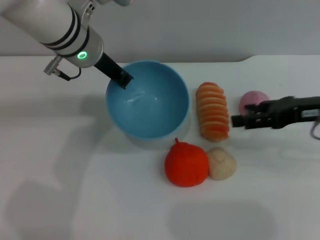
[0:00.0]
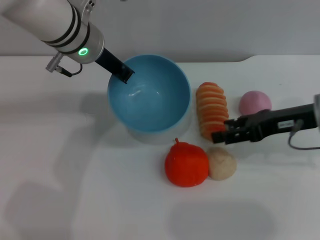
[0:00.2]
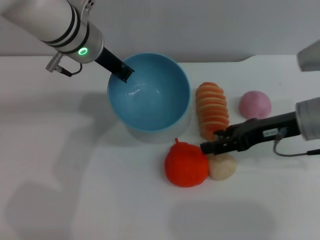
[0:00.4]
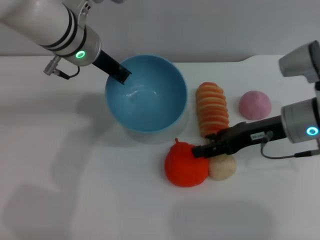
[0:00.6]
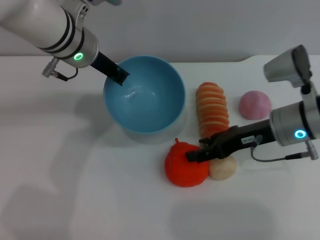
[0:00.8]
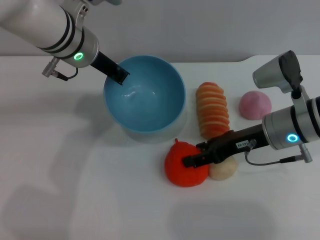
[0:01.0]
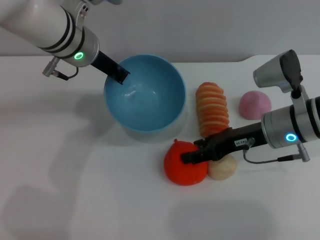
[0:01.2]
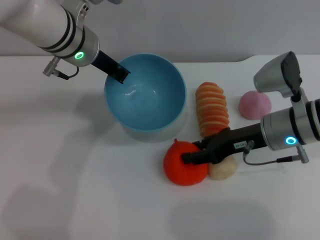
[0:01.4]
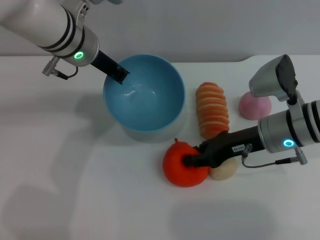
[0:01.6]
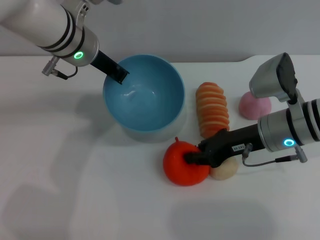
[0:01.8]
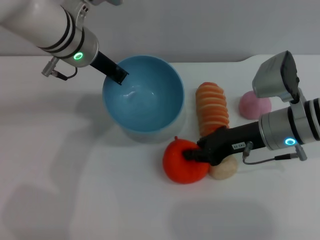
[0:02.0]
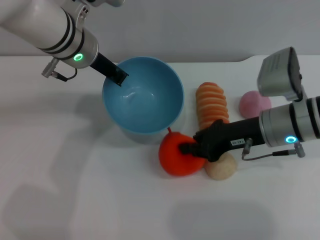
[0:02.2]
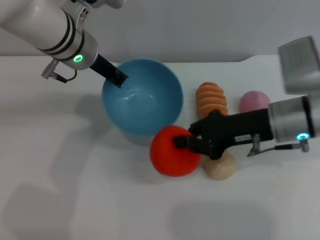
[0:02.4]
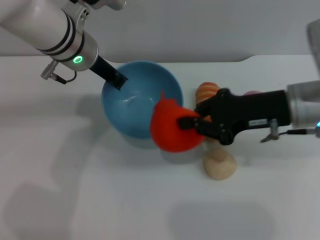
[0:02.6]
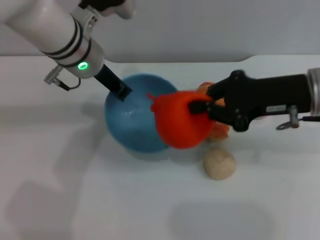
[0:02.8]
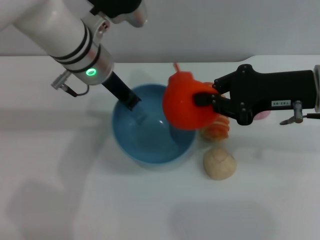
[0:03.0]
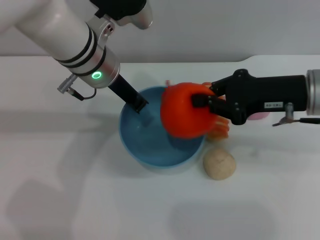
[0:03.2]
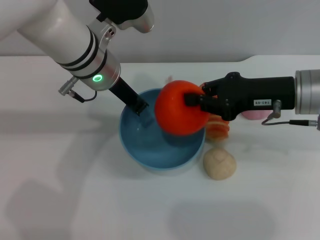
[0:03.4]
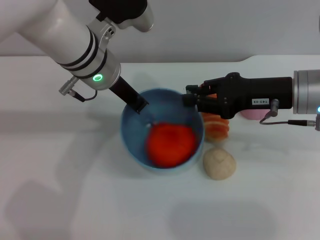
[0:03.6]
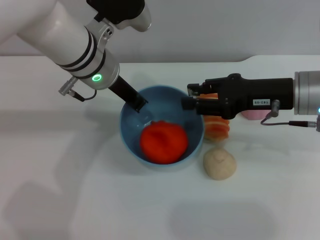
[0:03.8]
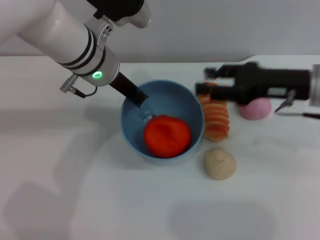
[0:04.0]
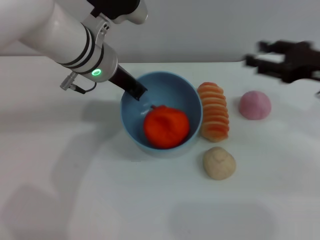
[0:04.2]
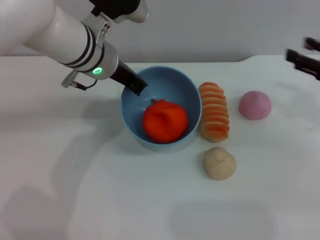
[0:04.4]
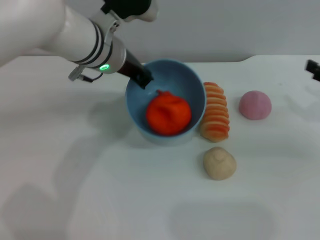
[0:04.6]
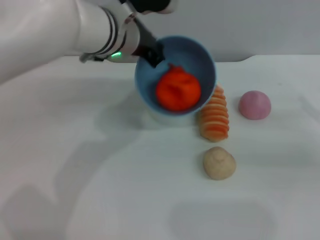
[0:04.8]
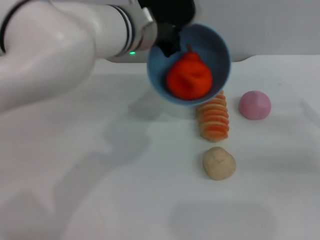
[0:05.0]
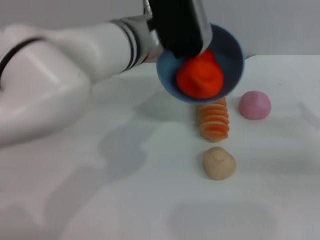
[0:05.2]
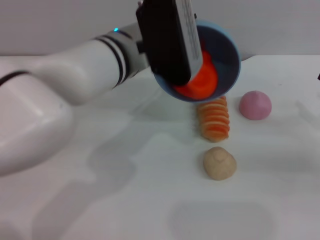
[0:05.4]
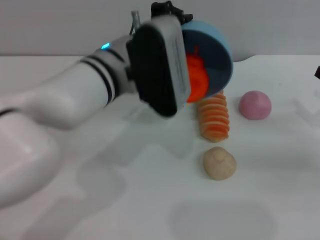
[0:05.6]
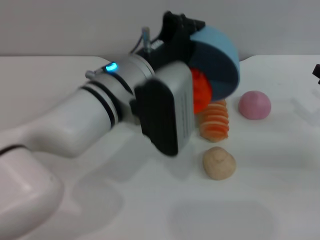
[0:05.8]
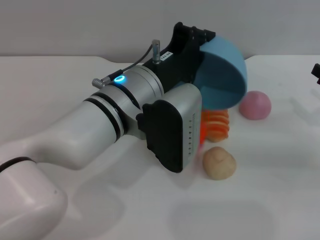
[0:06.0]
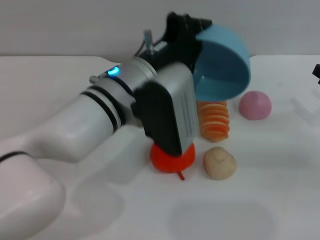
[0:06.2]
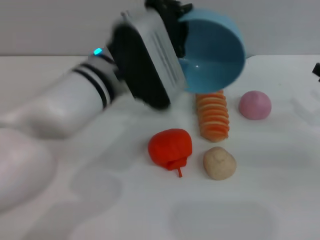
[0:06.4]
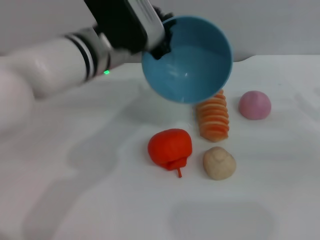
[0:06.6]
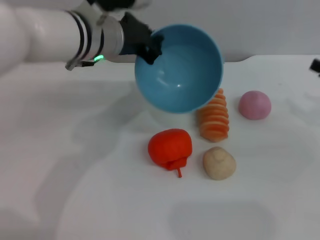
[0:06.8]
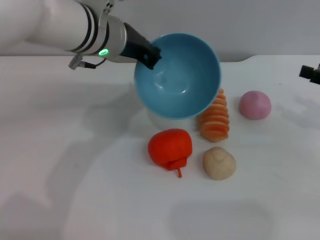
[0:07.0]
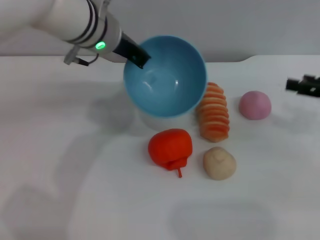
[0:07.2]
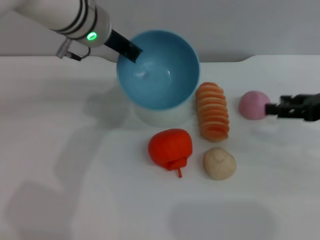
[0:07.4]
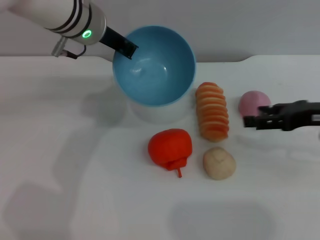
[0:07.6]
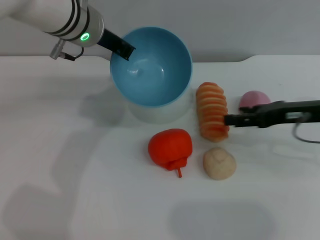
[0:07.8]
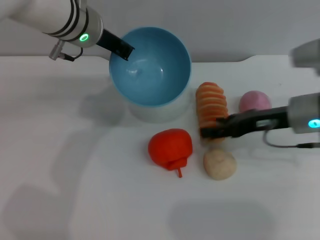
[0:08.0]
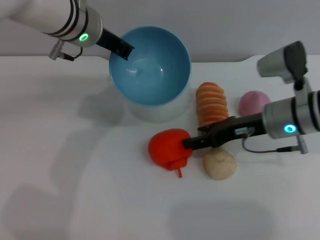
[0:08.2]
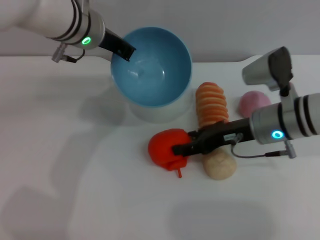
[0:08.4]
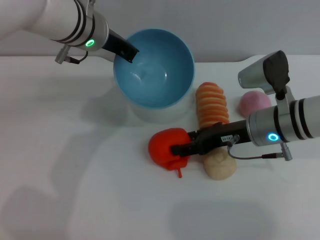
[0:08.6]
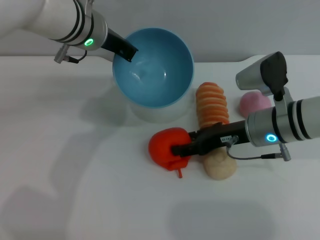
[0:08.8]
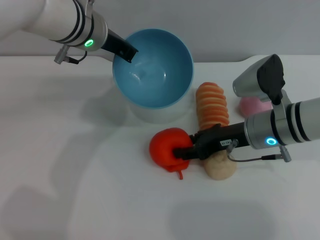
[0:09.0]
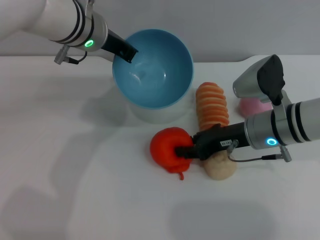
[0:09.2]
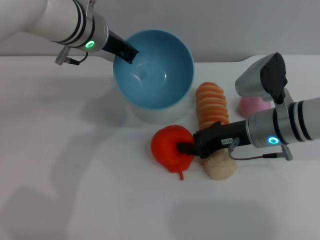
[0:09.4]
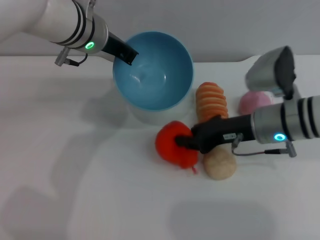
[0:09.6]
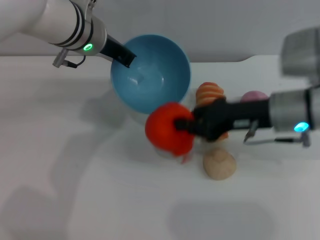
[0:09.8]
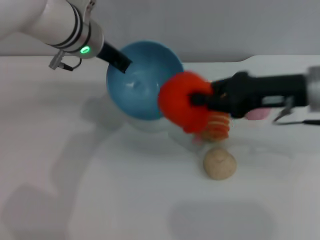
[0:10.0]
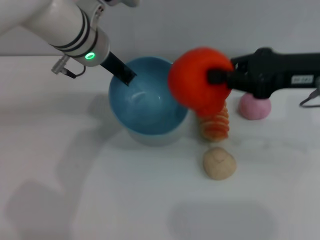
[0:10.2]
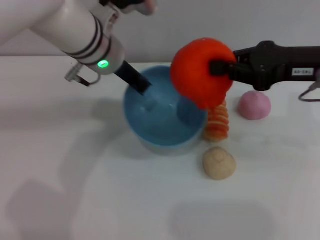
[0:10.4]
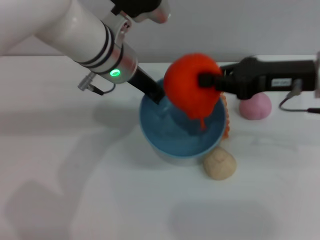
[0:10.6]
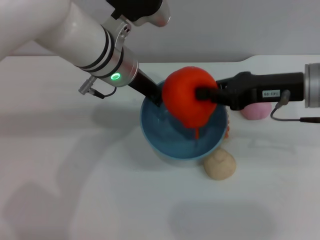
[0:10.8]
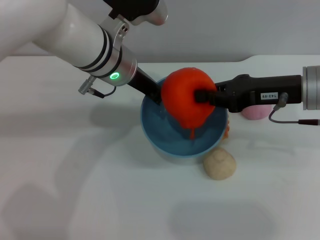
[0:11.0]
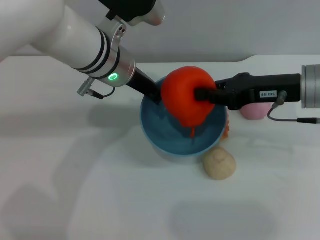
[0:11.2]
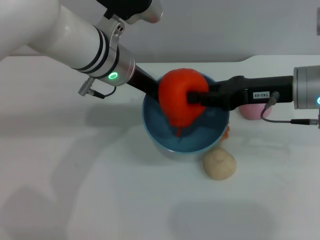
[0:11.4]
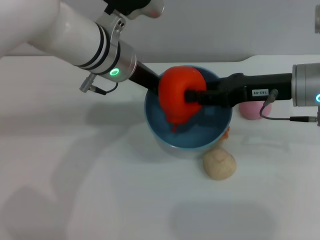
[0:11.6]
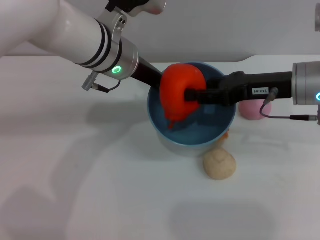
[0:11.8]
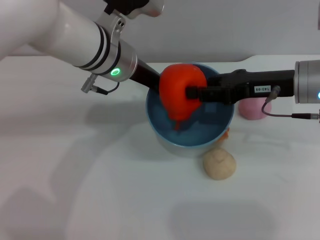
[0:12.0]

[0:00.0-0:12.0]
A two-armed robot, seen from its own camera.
Task of the whole recording: put the orange into the blue bowl and pour it out repeatedly.
Step, 0.0 to 2.4 s: Pick up the orange with the right gripper.
Step, 2.8 to 3.6 s: Place the orange into the bowl.
Step, 3.8 to 6.2 s: Pour the orange out of the bowl.
Step, 6.4 to 9.6 s: Pick up the orange with the right gripper.
0.0 to 1.6 s: The right gripper moves to the left and downward, about 10 cm, and closes.
1.6 to 3.0 s: The right gripper is displaced upward by about 10 cm, and closes.
3.0 to 4.4 s: The right gripper moves to the right, roughly 10 cm, and opens up.
4.4 to 6.0 s: The left gripper heads backward, covering some 10 cm. Meanwhile the right gripper is displaced downward by roughly 5 cm.
6.0 to 7.6 s: The right gripper is displaced to the left and upward by some 10 cm. The left gripper is displaced forward, to the left and upward by about 15 cm.
7.6 to 9.0 s: The right gripper heads to the left and downward, covering approximately 15 cm.
9.0 to 10.4 s: The right gripper moves upward and to the right, some 15 cm, and closes its fingers.
10.4 to 12.0 s: The right gripper travels downward by approximately 5 cm, and opens.

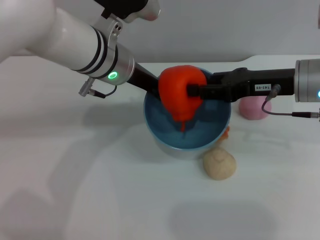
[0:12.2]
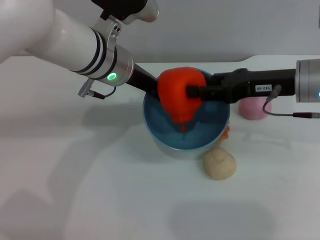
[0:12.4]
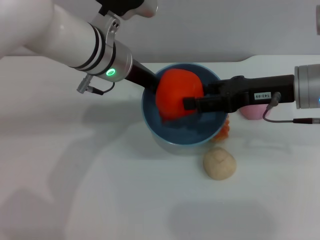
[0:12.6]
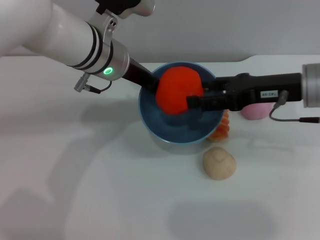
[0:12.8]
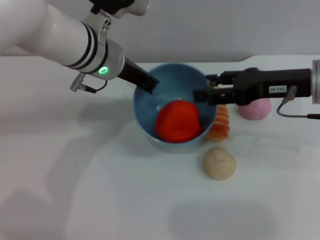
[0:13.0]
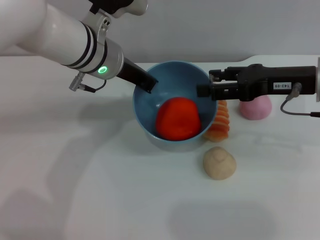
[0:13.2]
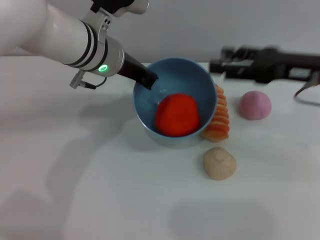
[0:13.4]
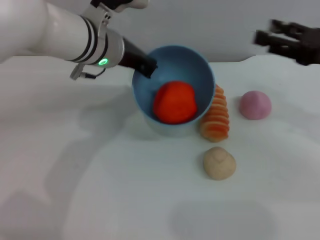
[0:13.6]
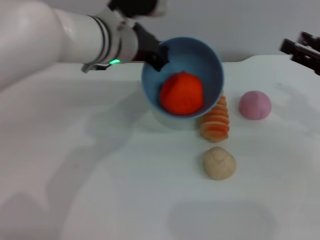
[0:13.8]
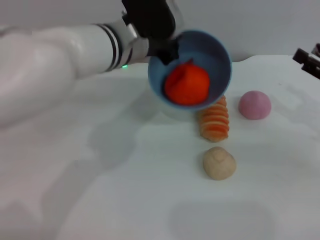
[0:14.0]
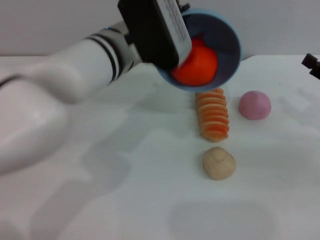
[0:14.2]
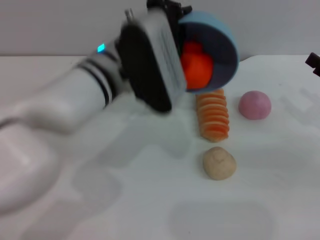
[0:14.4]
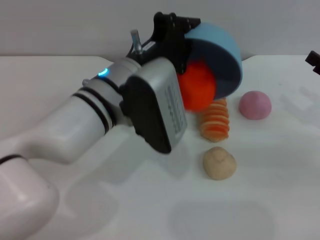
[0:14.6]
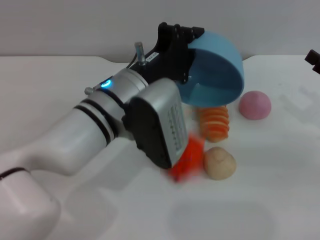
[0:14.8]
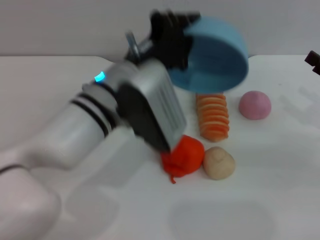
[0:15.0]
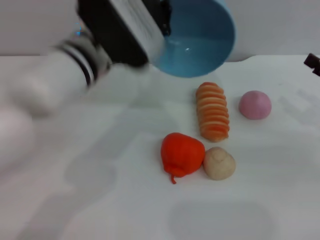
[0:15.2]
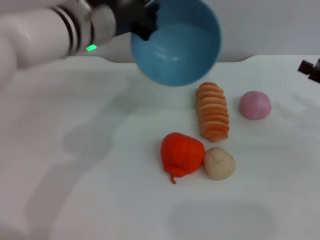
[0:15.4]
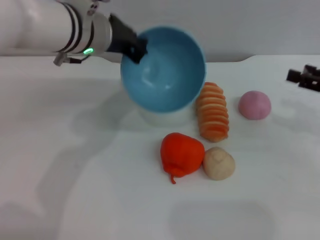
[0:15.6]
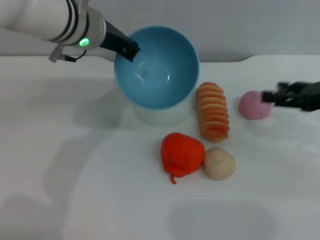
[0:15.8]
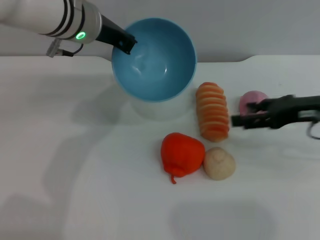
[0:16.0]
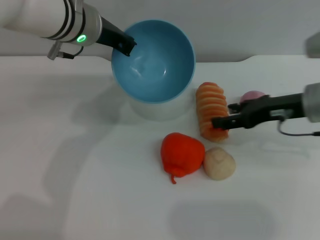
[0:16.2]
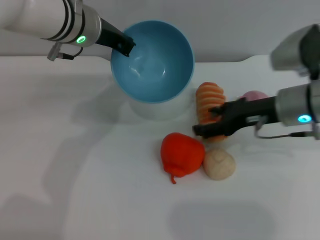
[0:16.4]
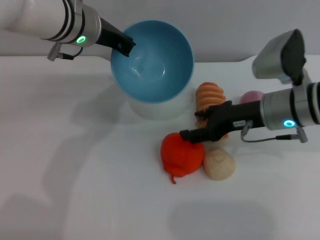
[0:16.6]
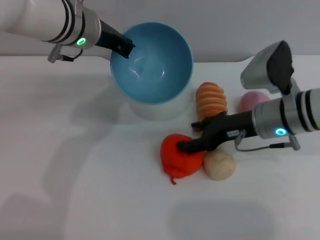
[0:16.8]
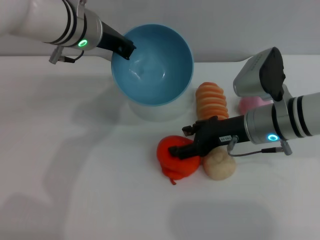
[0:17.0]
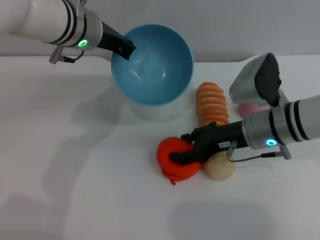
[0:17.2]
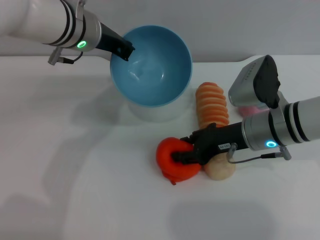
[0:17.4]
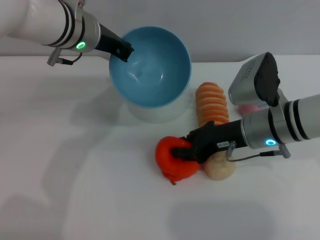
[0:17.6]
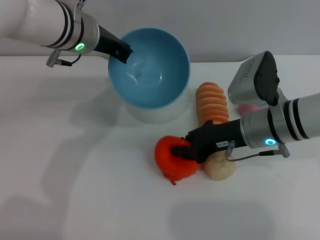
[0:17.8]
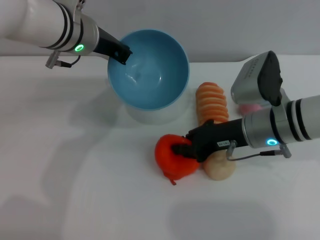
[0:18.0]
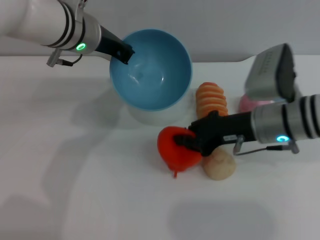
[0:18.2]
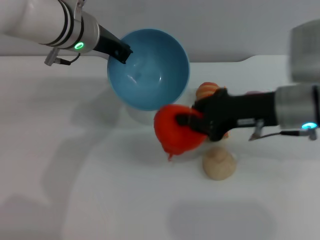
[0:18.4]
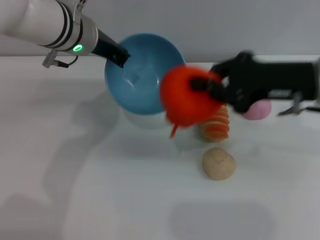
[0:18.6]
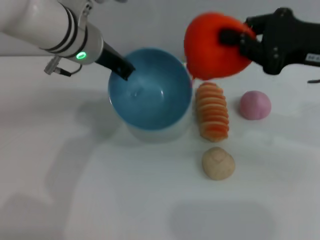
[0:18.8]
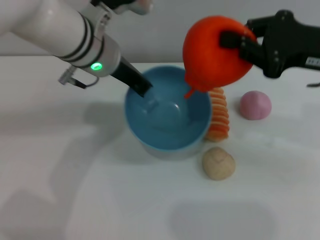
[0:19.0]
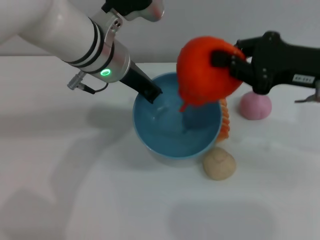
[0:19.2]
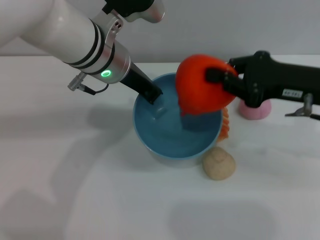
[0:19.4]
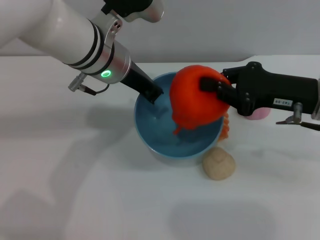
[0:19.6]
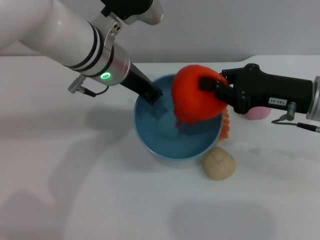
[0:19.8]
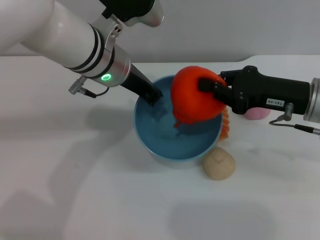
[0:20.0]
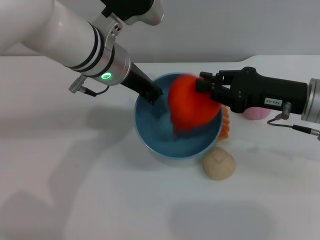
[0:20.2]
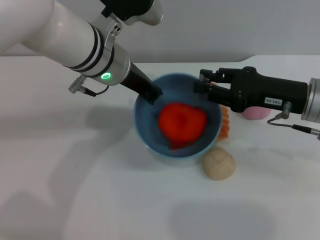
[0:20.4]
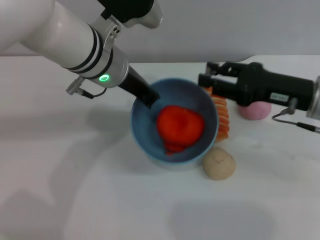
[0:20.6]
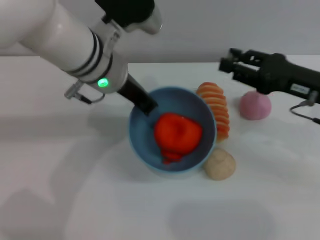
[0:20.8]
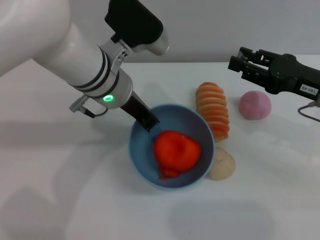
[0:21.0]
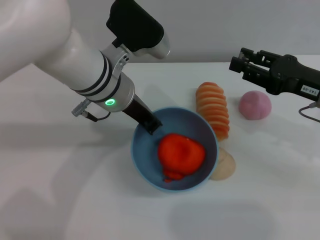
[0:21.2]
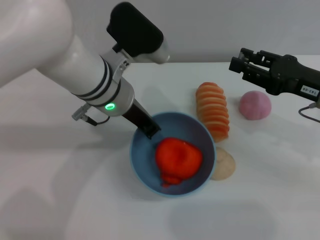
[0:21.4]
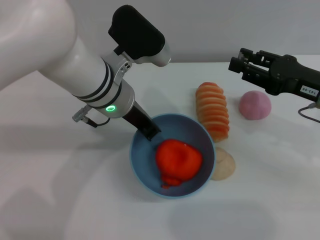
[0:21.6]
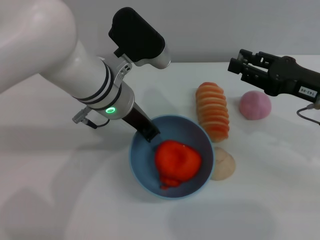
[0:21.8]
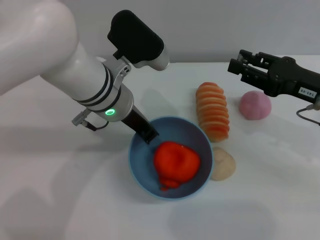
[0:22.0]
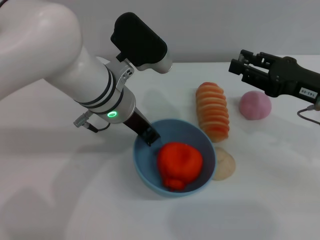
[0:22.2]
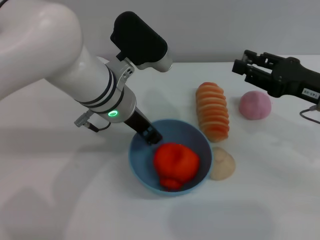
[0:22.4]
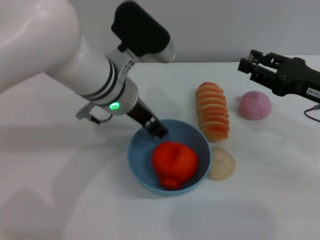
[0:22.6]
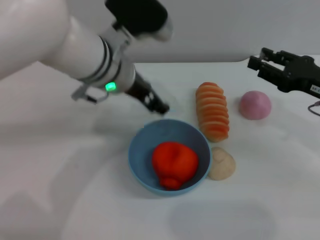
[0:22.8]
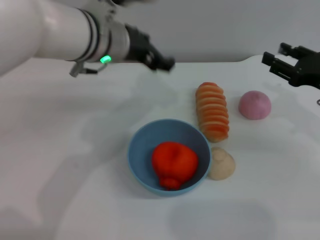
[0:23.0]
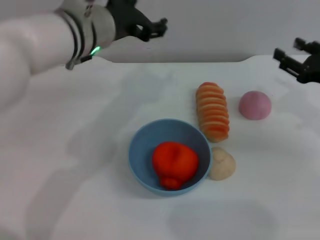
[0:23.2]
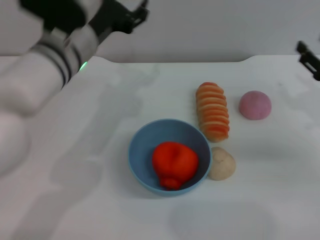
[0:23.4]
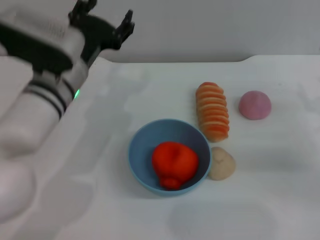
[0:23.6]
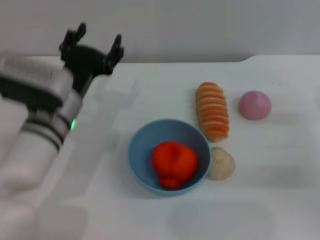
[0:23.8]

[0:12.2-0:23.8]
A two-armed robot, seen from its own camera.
Task of the whole recording: put the orange into the blue bowl and pour it out repeatedly.
Step, 13.2 to 15.0 s: Pour the orange out of the bowl.
Step, 15.4 to 18.2 s: Pick up the orange with the right gripper.
Step, 18.4 to 20.6 s: Place the orange into the bowl.
Step, 20.8 to 22.8 s: Place the bowl on the table.
12.2 to 13.6 s: The right gripper is displaced to the right by roughly 10 cm, and opens.
13.6 to 15.0 s: The left gripper goes approximately 10 cm backward. Meanwhile the right gripper goes some 10 cm downward and to the right.
15.0 to 16.6 s: The right gripper goes about 15 cm to the left, while the left gripper moves forward, upward and to the left, approximately 15 cm.
16.6 to 18.0 s: The right gripper closes its fingers.
18.0 to 19.4 s: The left gripper shifts by about 5 cm, while the right gripper moves upward and to the right, about 10 cm.
19.4 to 21.0 s: The right gripper opens its fingers.
21.0 to 22.4 s: The grippers move only a little.
22.4 to 23.8 s: The right gripper moves downward and to the right, some 10 cm; the left gripper moves to the left and downward, roughly 10 cm, and opens its fingers.
